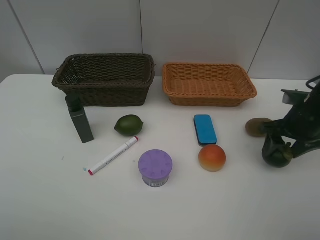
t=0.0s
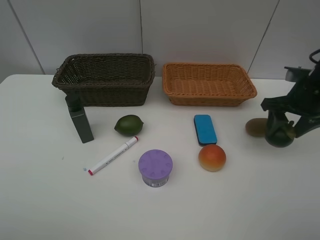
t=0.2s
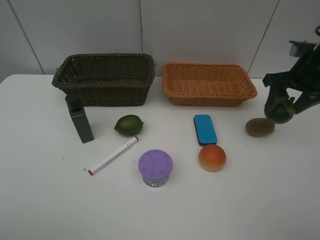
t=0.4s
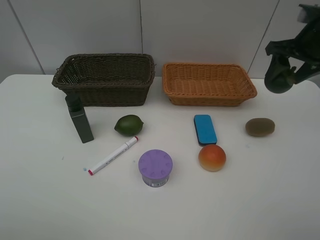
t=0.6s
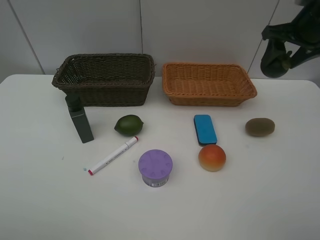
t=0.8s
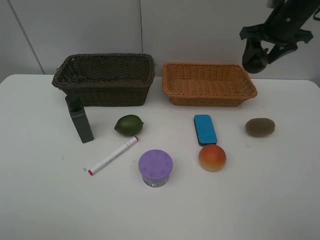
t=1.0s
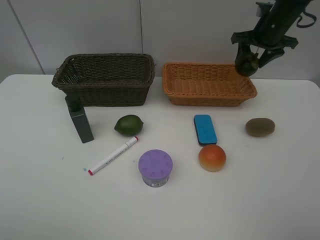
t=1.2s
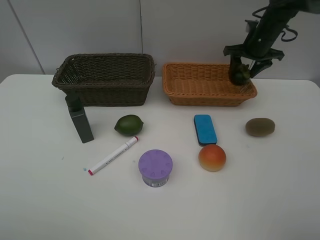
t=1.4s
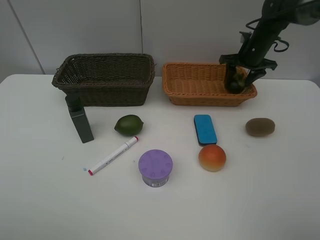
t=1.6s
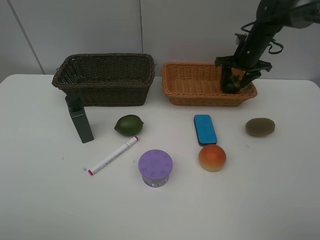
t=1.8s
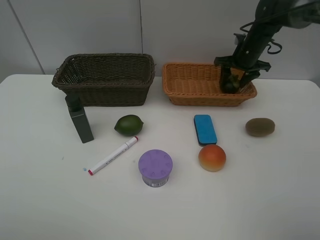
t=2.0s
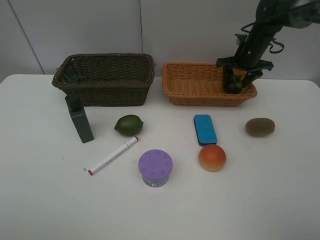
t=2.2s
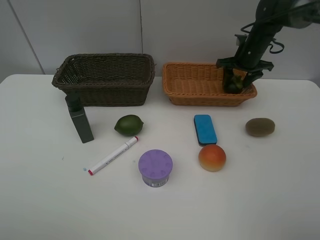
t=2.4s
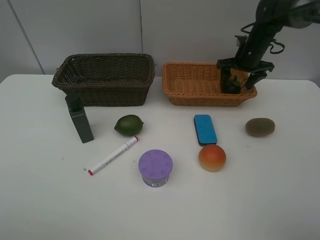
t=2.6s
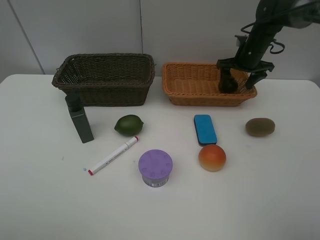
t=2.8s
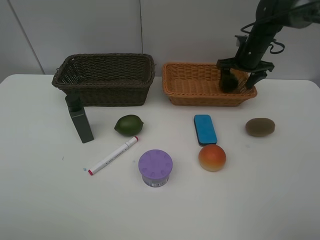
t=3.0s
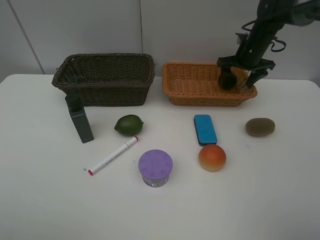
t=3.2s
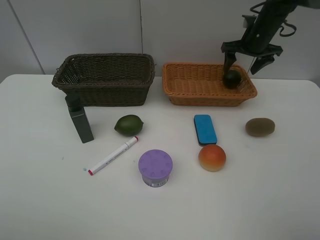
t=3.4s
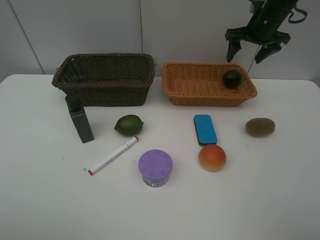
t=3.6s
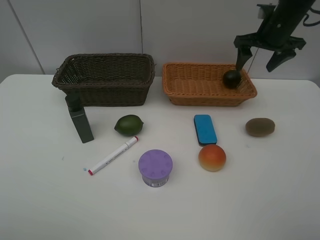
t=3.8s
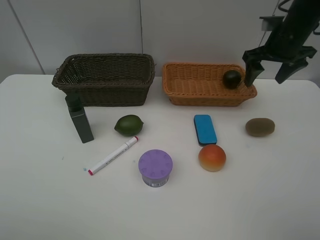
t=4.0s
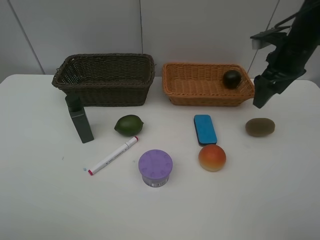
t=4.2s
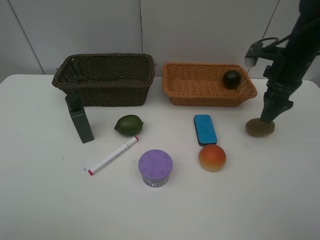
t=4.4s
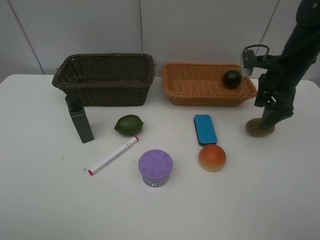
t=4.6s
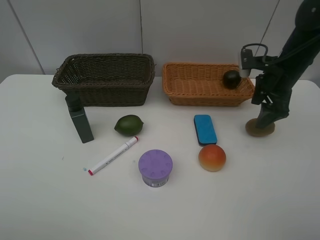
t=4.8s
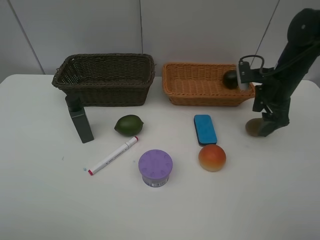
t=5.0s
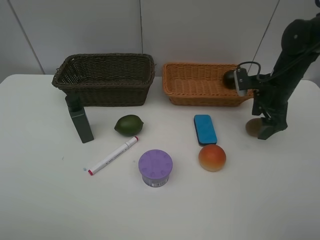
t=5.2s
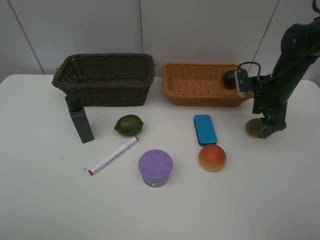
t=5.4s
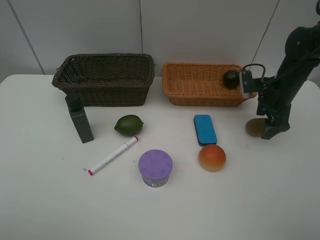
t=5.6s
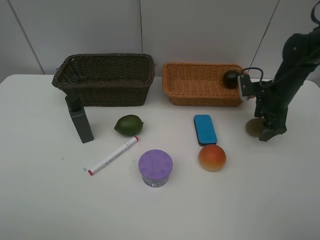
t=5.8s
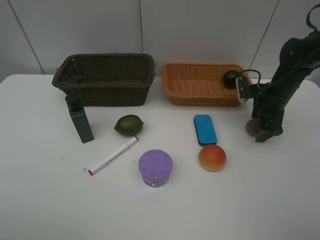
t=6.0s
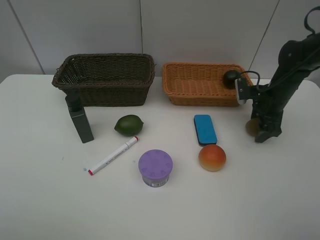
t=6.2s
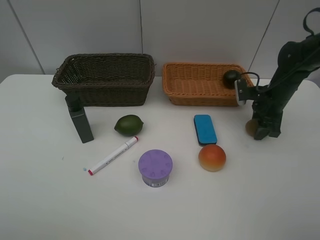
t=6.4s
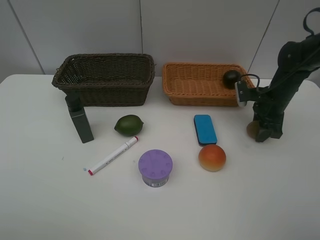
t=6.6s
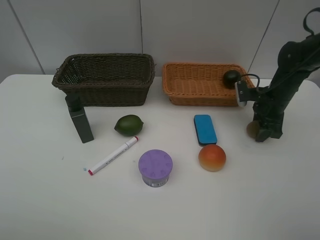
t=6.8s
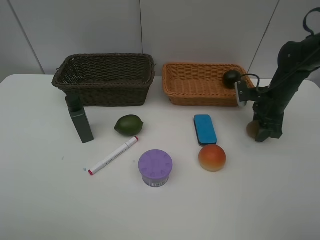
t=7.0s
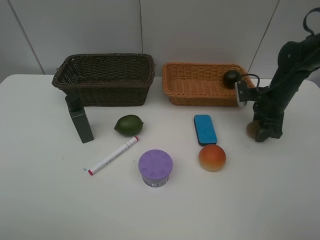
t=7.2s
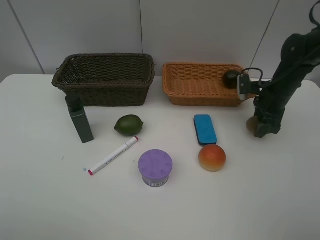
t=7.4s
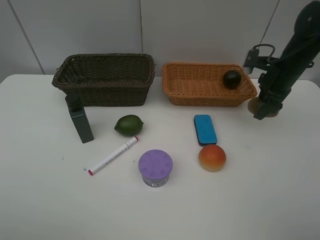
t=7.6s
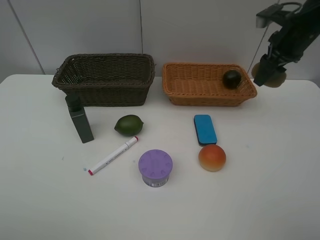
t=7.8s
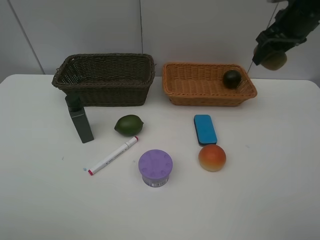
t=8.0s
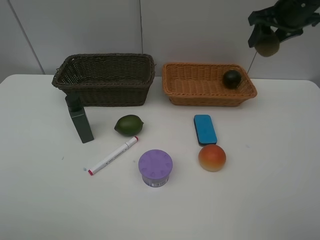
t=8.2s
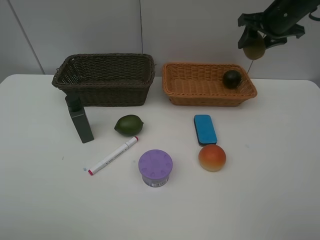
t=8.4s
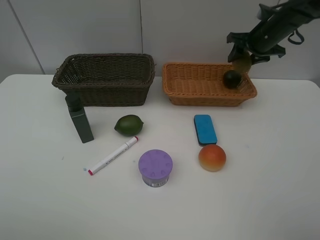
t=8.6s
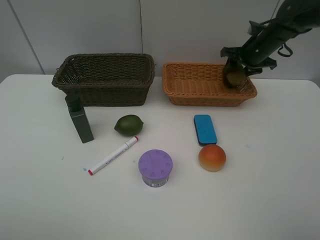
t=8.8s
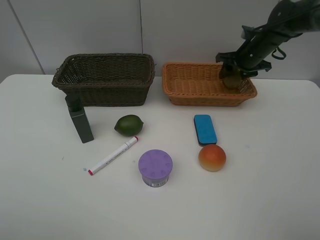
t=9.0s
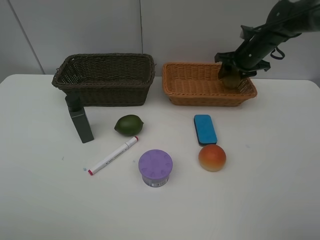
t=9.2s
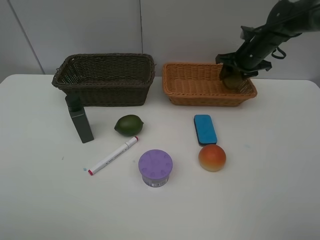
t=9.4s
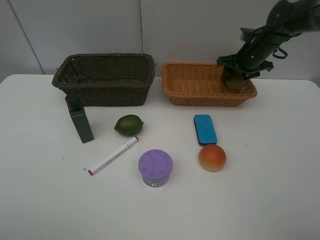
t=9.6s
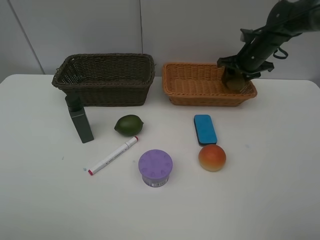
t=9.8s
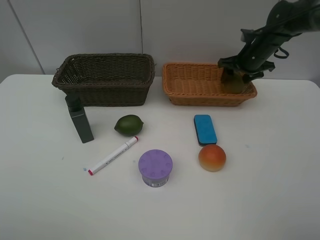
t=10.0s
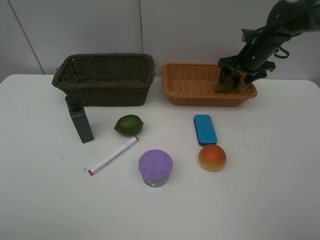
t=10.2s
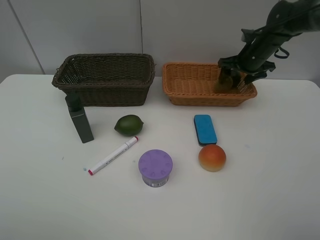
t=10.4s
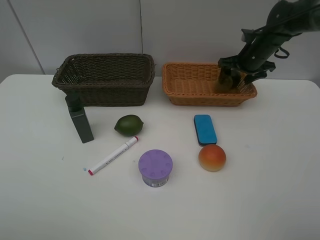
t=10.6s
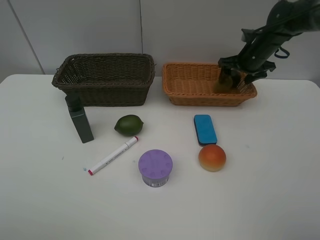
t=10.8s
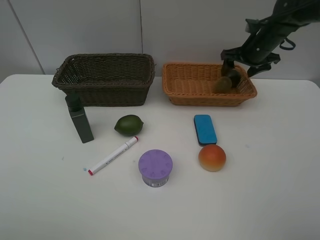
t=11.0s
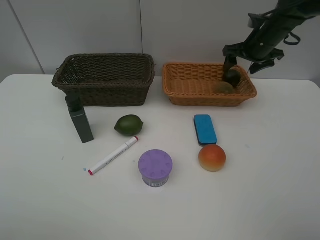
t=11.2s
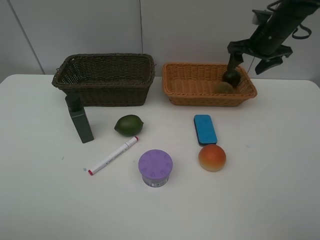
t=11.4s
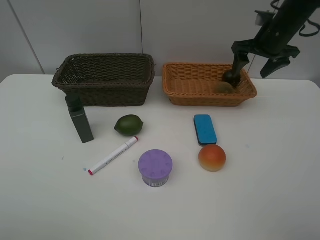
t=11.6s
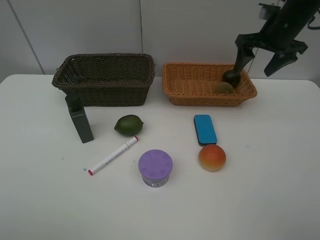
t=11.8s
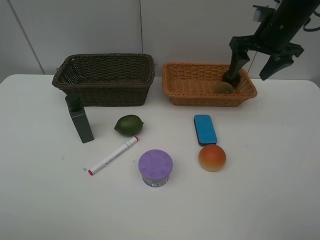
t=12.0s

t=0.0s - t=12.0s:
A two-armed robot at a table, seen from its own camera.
Task of the whole recording: Place multiple objects separately in different baskets.
Step, t=0.2s - t=3.4s: Place the mangosteen in the light basket with right gripper.
Step, t=3.6s - t=7.4s: Pick up kiwi with right gripper.
Step, t=7.6s - t=11.2s: Place the kiwi in the light basket with right gripper.
t=0.0s - t=1.6s: The right gripper shifts approximately 20 cm forward.
t=1.6s - t=3.0s: The right gripper opens up.
t=3.0s - t=4.4s: The right gripper moves backward, roughly 15 cm.
t=4.4s - t=6.0s: The right gripper goes about 10 cm downward.
t=6.0s - t=7.6s: The right gripper travels upward by about 10 cm, and closes up.
t=7.6s - t=9.0s: The right gripper moves forward, some 10 cm, and travels upward and back again, some 10 cm each way.
t=9.0s - t=10.4s: The right gripper opens.
t=10.4s - t=12.0s: The right gripper travels upward and backward by approximately 15 cm.

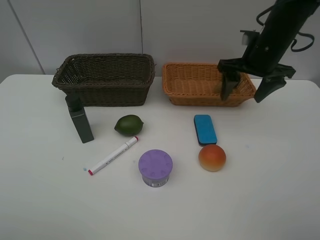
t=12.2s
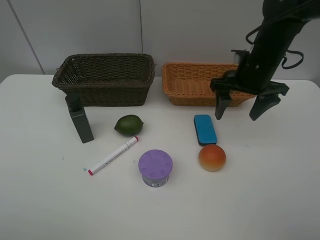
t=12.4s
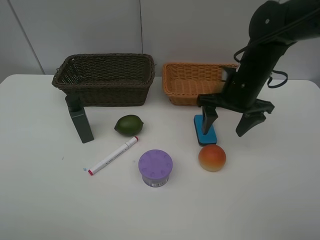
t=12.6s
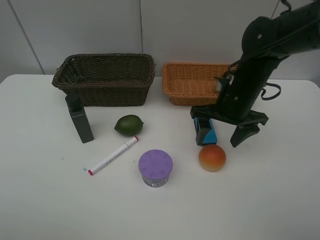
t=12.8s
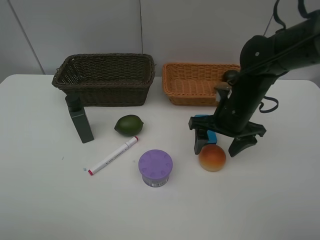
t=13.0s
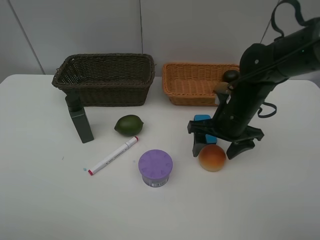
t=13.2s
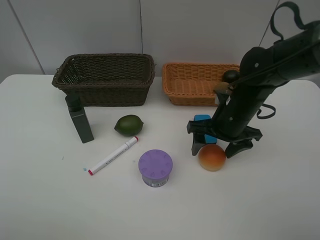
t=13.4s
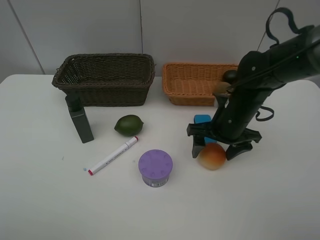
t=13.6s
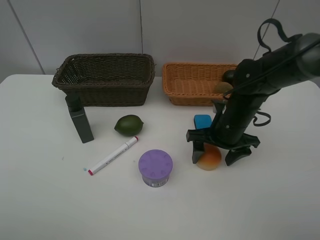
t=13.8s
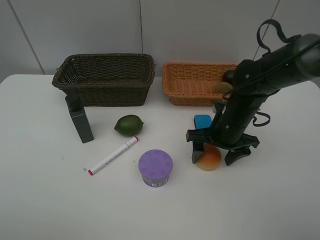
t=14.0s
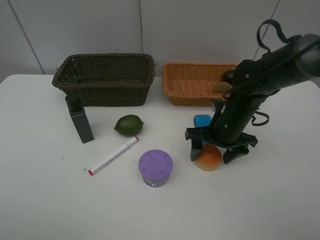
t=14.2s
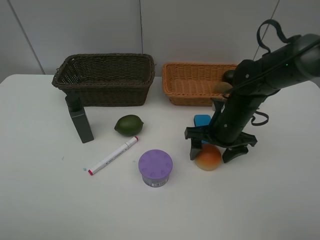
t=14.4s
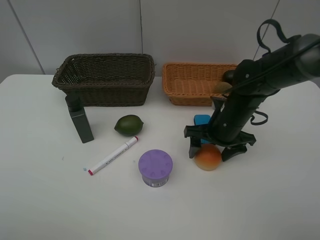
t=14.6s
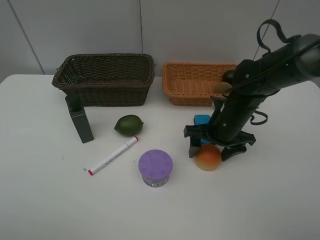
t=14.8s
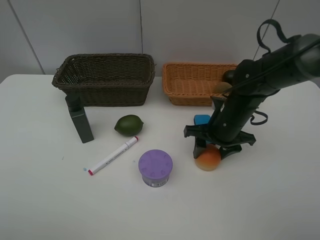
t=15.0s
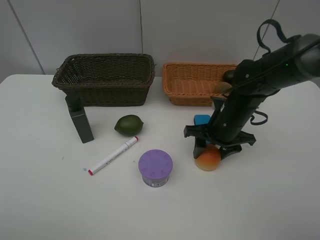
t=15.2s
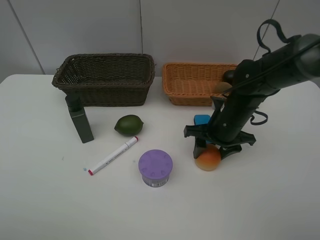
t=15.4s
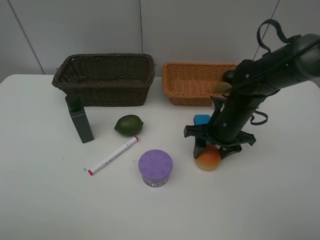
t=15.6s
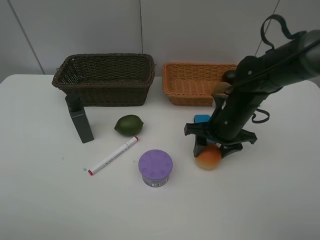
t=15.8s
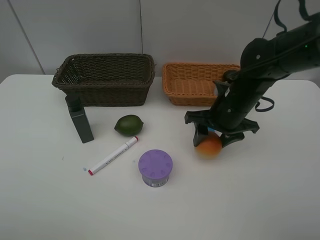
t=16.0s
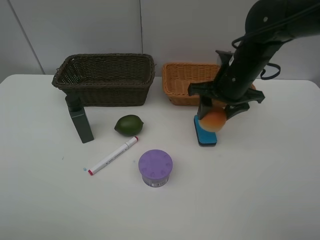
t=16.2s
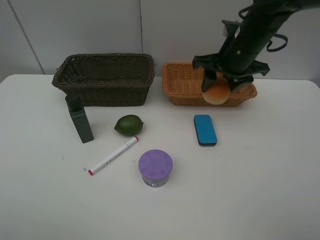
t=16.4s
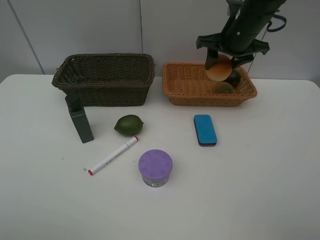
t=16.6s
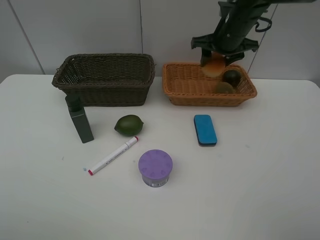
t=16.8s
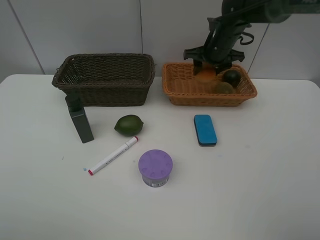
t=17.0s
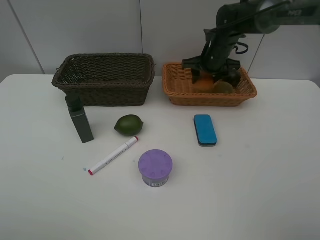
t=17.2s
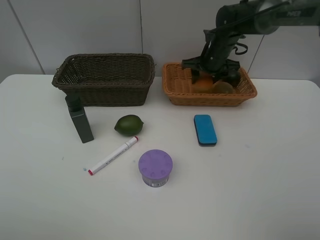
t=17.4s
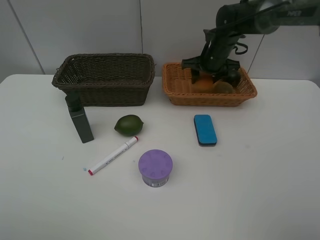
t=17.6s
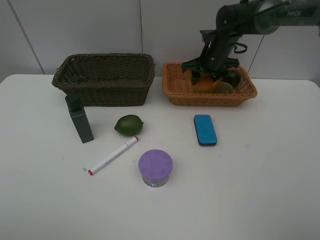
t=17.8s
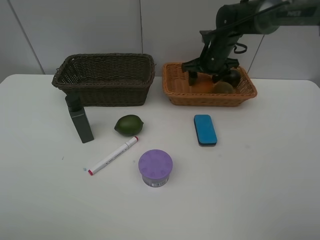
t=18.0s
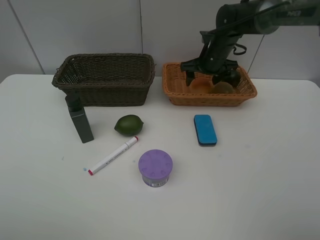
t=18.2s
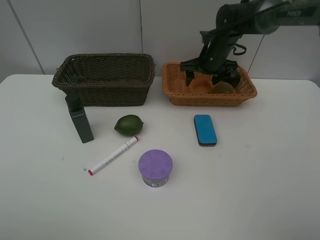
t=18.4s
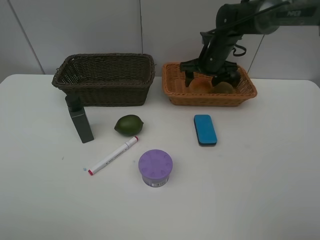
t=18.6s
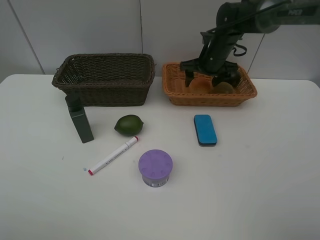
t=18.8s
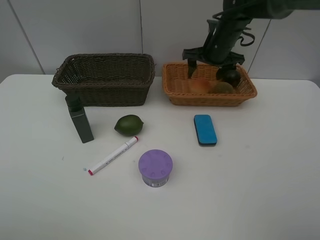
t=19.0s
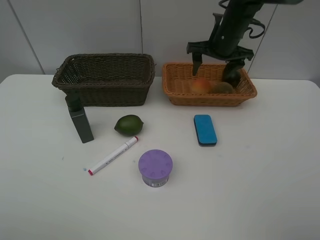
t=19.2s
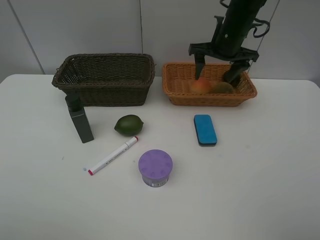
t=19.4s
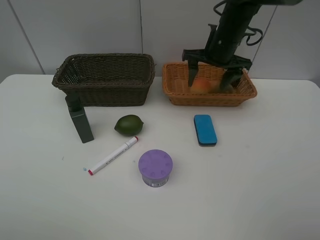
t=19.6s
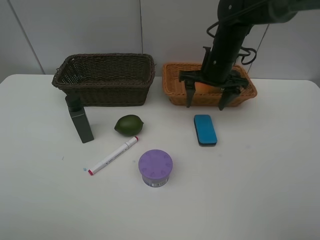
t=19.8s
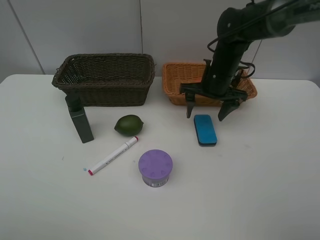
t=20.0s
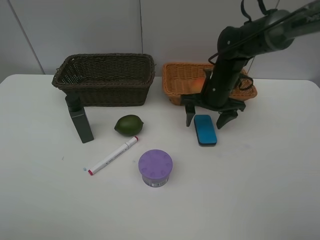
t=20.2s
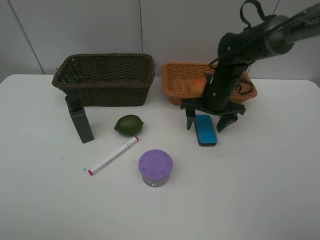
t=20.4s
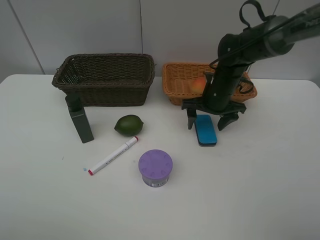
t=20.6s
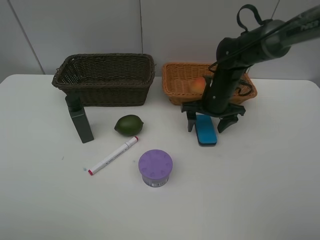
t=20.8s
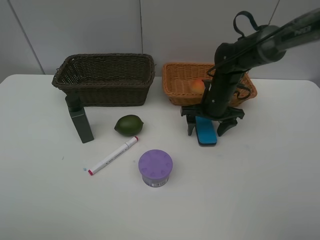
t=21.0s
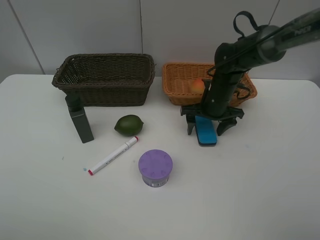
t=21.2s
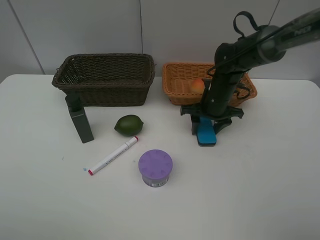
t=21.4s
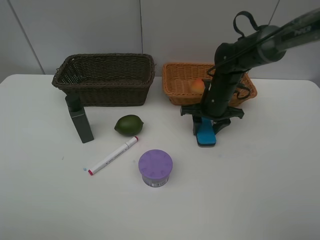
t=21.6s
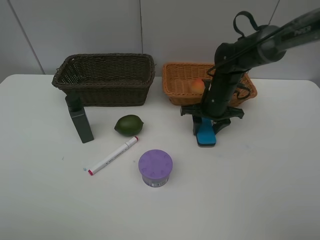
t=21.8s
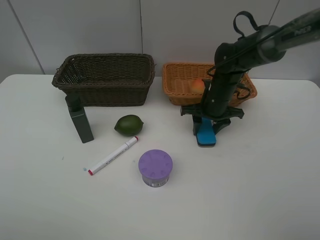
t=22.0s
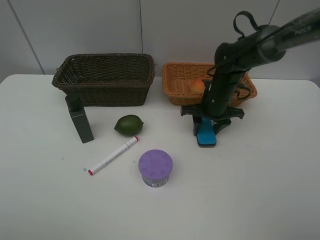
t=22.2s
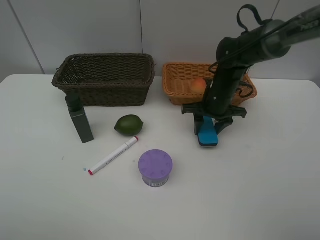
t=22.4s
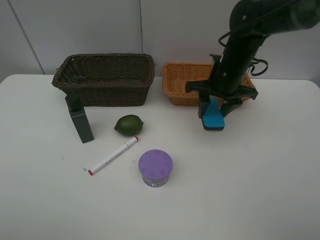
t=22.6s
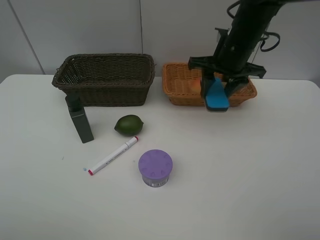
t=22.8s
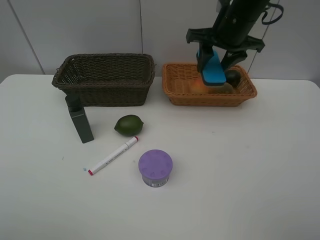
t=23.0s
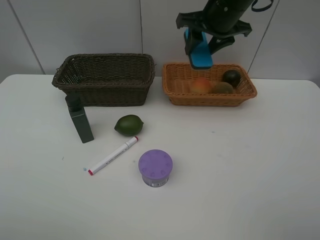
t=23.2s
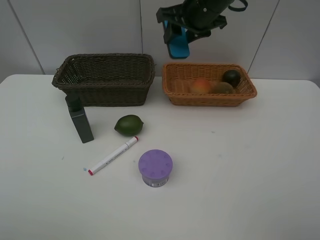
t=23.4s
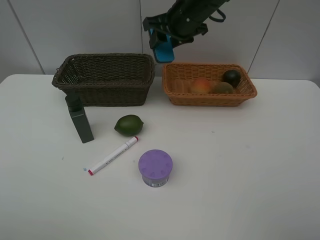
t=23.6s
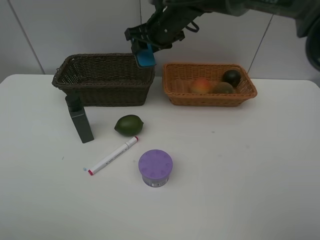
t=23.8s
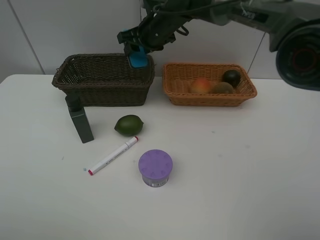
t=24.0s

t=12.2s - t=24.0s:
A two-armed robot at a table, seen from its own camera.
Task of the whole recording: Place multiple objects separately in different baskets.
Step, t=12.2s - t=16.0s: Pick up egg yolk pastry with right gripper.
Step, t=16.2s - t=19.0s: Place the egg yolk pastry in the light basket with right gripper.
Step, t=19.2s - t=22.4s: Pick up blackboard eraser with right gripper.
t=12.2s - t=13.6s: The right gripper heads downward, backward and to the left, covering about 15 cm.
t=13.6s - t=15.2s: The right gripper closes.
t=15.2s - t=16.6s: The right gripper shifts some 20 cm upward and forward.
t=16.6s - t=18.2s: The right gripper goes about 10 cm downward and forward, and opens its fingers.
t=18.2s - t=19.6s: The right gripper shifts about 10 cm backward and upward.
t=19.6s - t=21.0s: The right gripper is displaced downward by approximately 10 cm.
t=21.0s - t=22.6s: The right gripper is displaced upward by approximately 10 cm, and closes its fingers.
t=22.6s - t=24.0s: The right gripper shifts about 20 cm to the left and forward.
